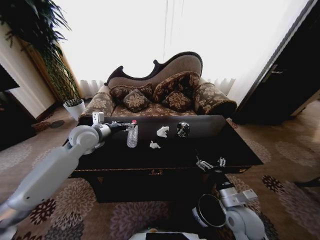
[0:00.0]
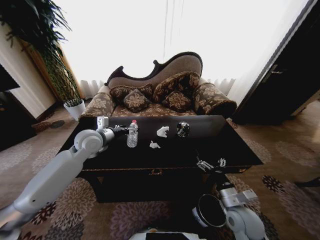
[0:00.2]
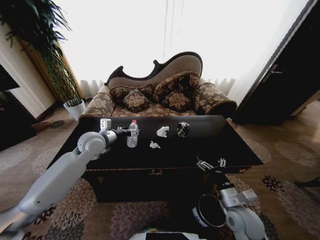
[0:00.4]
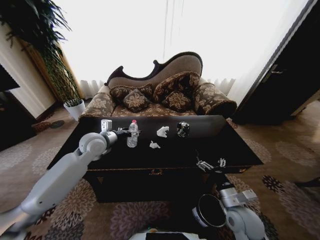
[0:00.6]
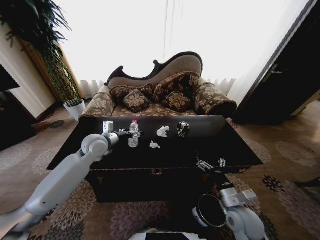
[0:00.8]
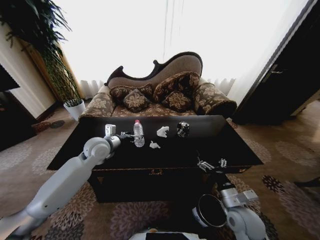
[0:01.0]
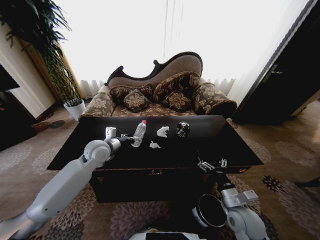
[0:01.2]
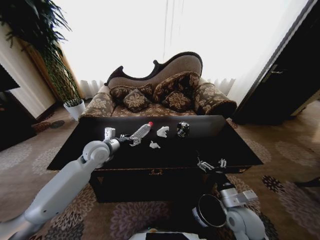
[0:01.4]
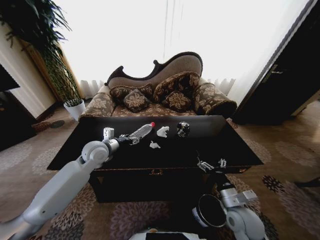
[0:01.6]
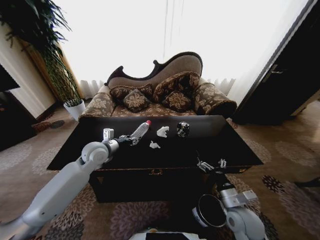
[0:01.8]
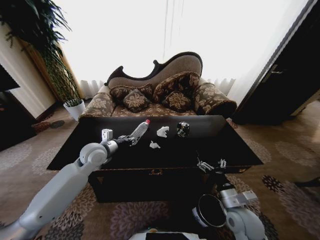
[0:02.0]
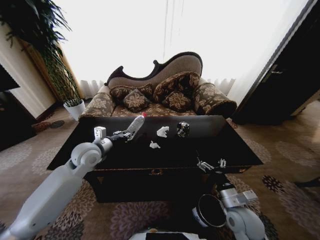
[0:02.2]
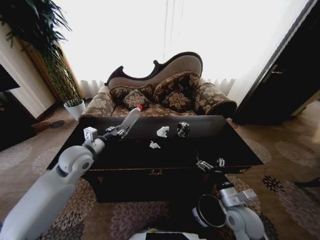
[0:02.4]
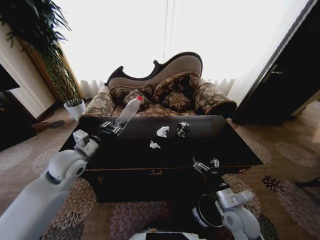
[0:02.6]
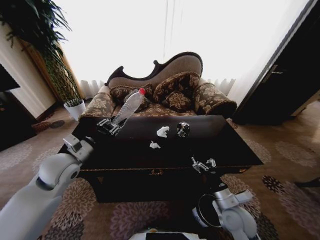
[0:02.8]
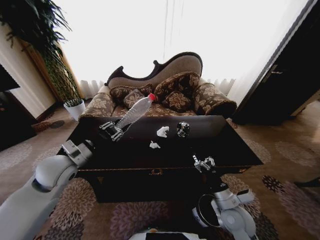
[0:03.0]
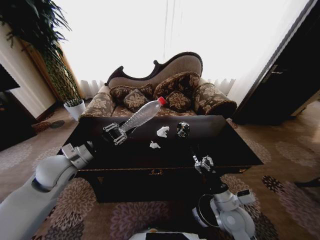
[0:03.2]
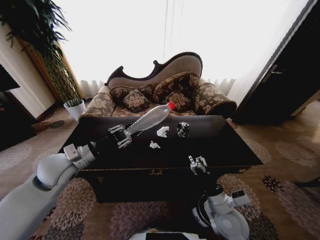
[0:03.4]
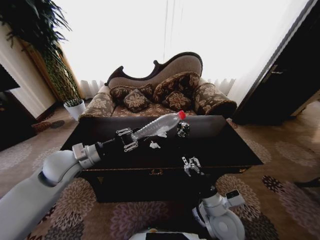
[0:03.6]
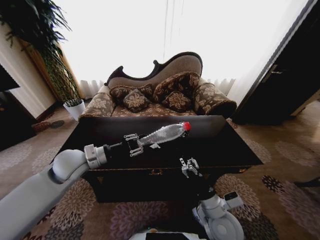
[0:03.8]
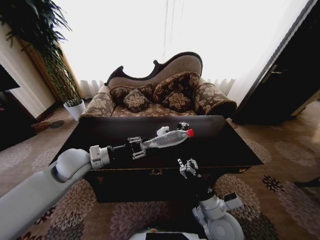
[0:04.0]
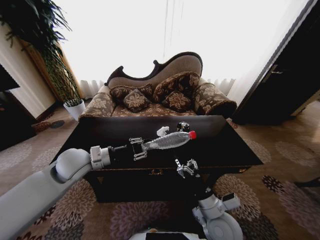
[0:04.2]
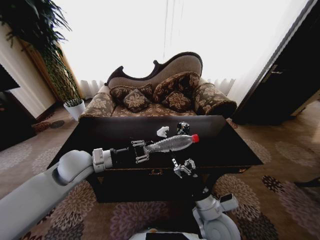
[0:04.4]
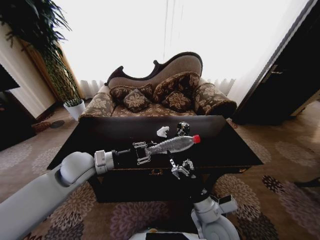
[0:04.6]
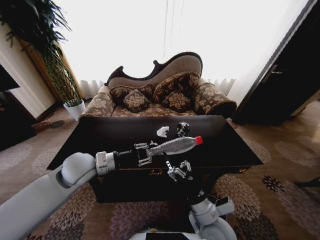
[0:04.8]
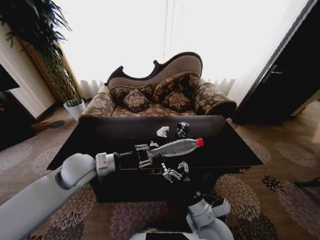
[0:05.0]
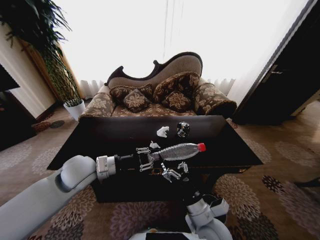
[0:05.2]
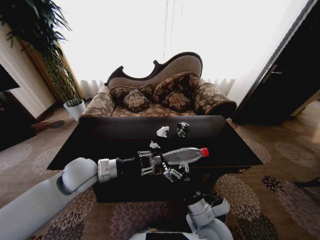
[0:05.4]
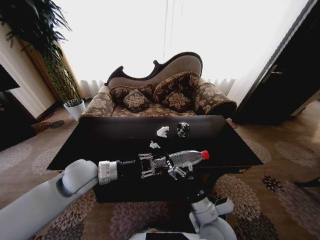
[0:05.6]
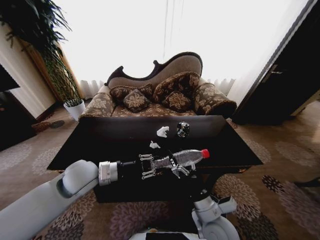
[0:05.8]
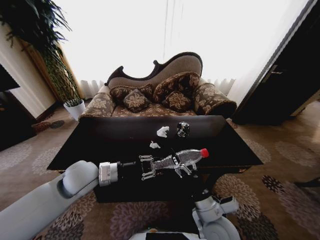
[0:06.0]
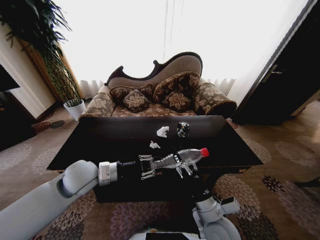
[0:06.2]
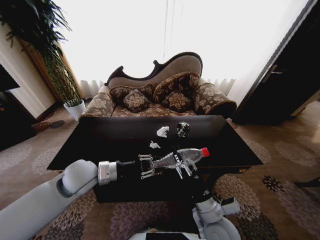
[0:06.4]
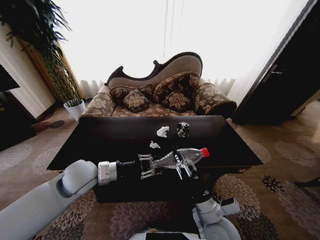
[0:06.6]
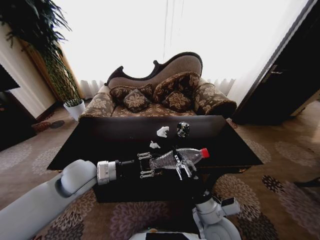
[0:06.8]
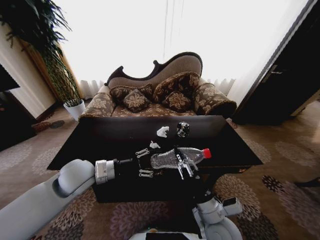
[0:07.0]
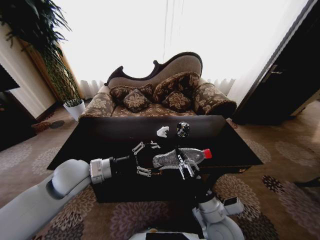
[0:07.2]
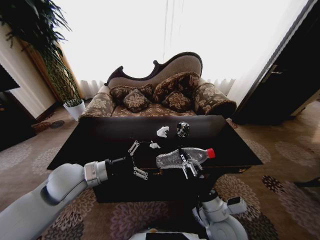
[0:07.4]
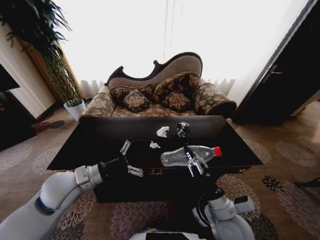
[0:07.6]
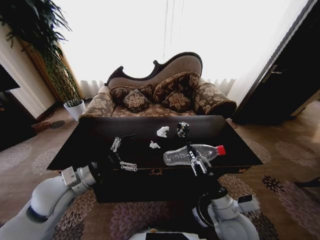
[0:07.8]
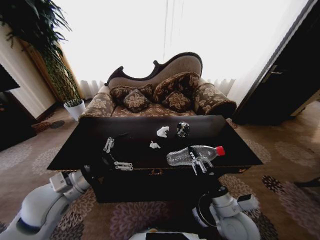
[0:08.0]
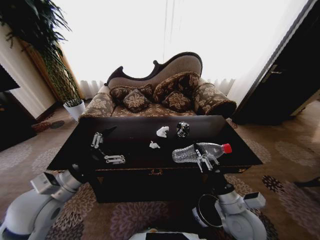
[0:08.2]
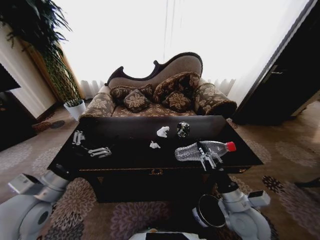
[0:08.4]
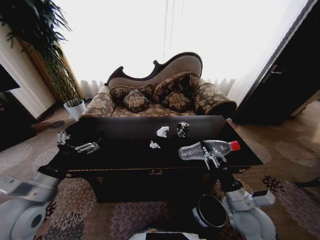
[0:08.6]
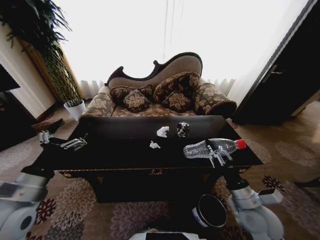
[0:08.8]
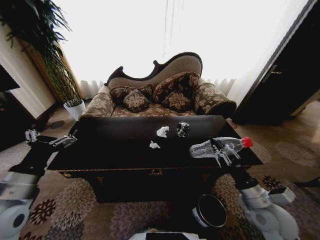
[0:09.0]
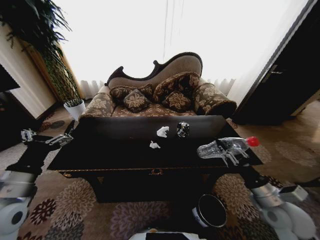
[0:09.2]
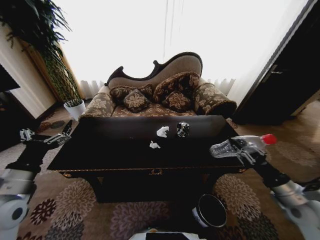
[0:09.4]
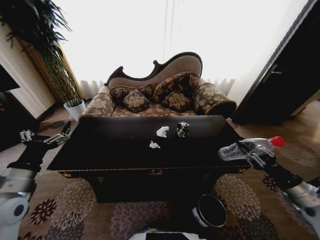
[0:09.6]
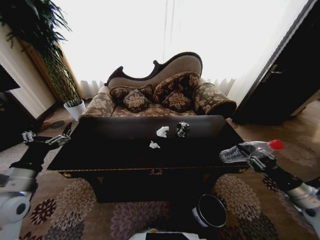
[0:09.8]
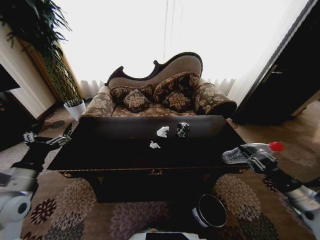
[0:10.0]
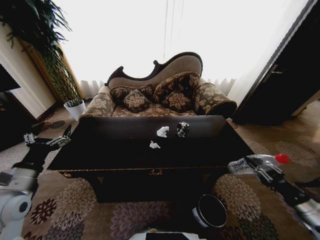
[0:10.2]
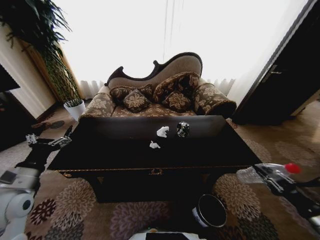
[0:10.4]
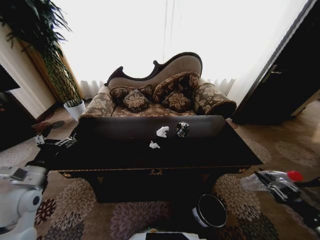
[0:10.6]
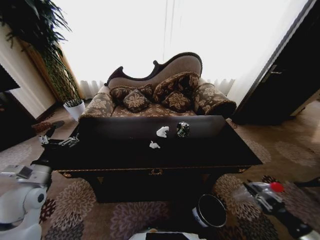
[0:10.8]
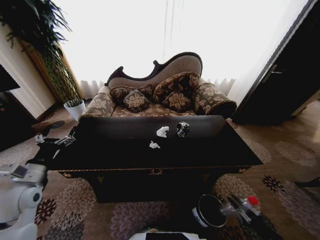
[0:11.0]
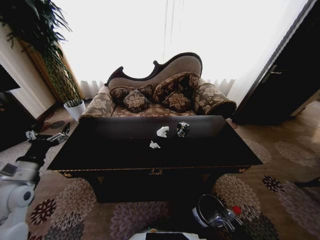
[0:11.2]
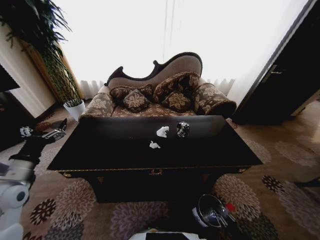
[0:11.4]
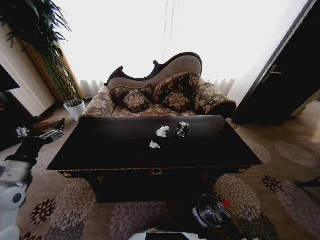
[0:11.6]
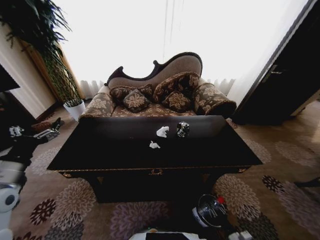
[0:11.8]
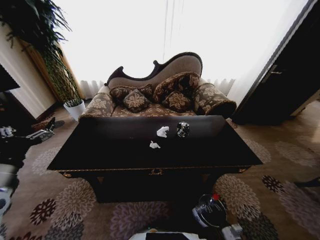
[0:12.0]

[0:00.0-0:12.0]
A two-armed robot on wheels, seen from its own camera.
Task of the whole recording: Move to the front of the table and place the trash on the table into the trash bin.
0:00.0 to 0:01.6: The left gripper moves downward, some 5 cm.
0:01.6 to 0:03.0: The left gripper goes some 10 cm backward and to the left, and closes its fingers.
0:03.0 to 0:04.4: The left gripper moves to the right, roughly 5 cm, while the right gripper moves to the left, roughly 10 cm.
0:04.4 to 0:06.0: The grippers make only small movements.
0:06.0 to 0:07.6: The left gripper ends up roughly 5 cm from where it was, and opens. Meanwhile the right gripper closes.
0:07.6 to 0:09.0: The left gripper moves to the left and backward, about 10 cm. Meanwhile the right gripper moves to the right, approximately 10 cm.
0:09.0 to 0:10.4: The right gripper goes some 20 cm to the right. The left gripper moves approximately 5 cm.
0:10.4 to 0:12.0: The right gripper is displaced downward and to the left by some 35 cm.

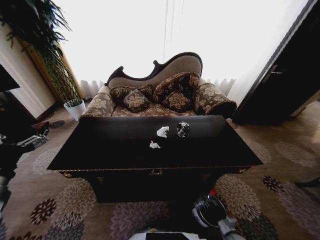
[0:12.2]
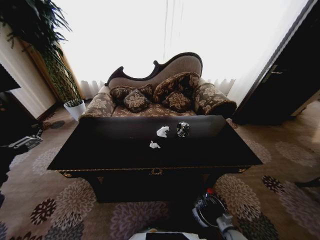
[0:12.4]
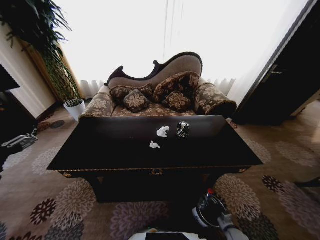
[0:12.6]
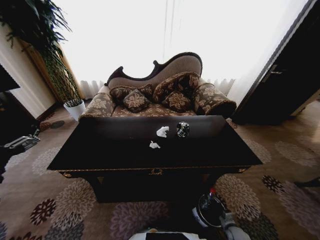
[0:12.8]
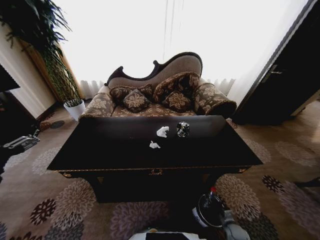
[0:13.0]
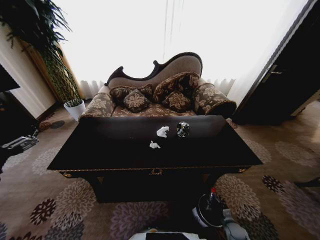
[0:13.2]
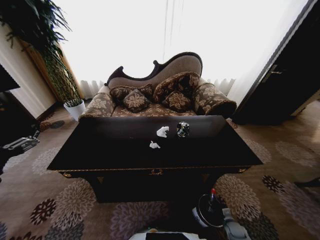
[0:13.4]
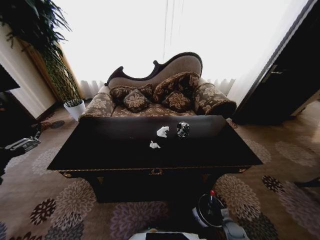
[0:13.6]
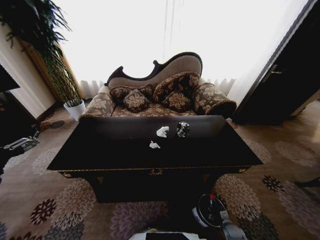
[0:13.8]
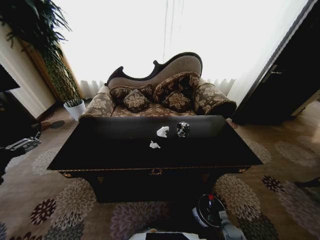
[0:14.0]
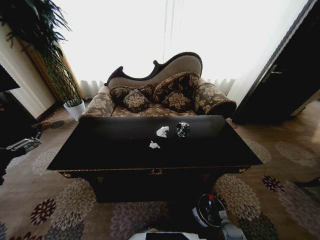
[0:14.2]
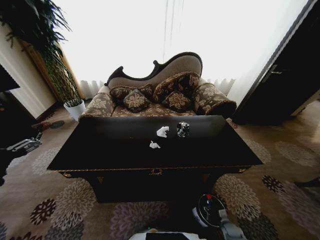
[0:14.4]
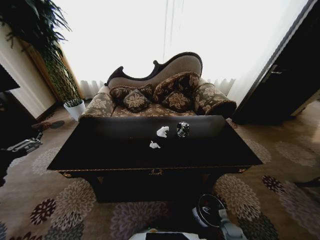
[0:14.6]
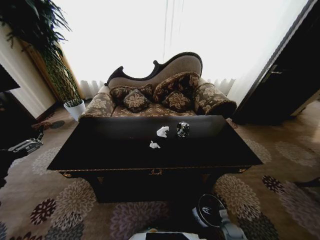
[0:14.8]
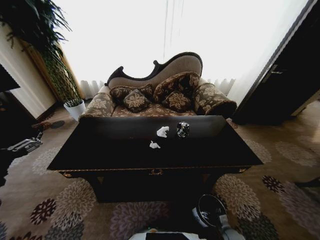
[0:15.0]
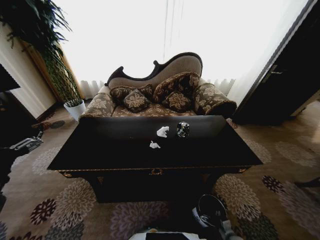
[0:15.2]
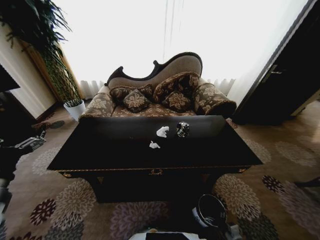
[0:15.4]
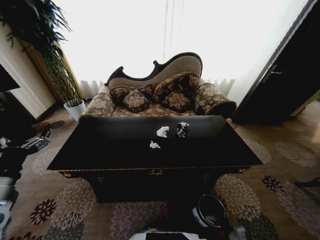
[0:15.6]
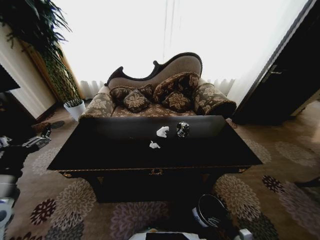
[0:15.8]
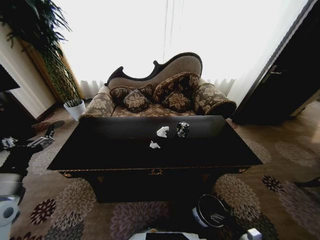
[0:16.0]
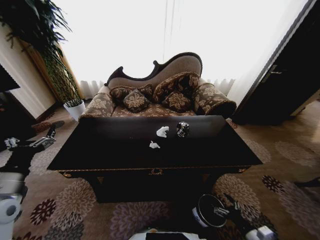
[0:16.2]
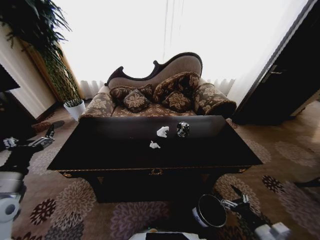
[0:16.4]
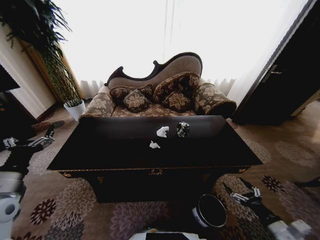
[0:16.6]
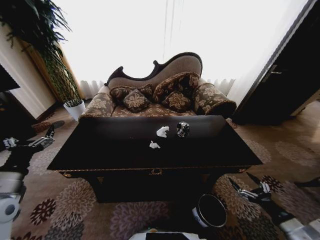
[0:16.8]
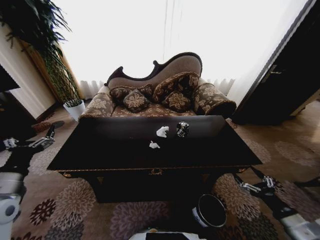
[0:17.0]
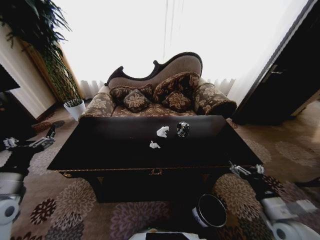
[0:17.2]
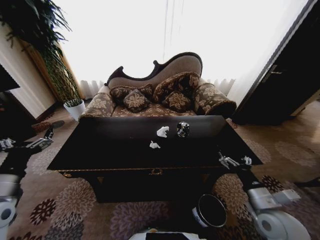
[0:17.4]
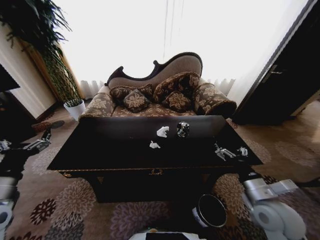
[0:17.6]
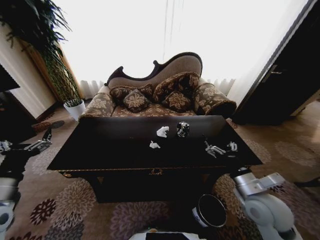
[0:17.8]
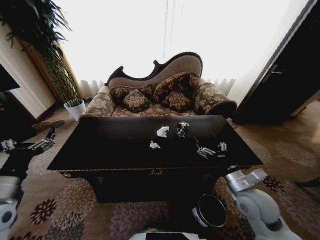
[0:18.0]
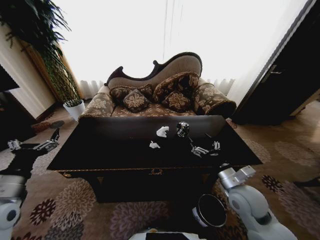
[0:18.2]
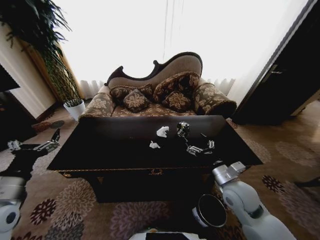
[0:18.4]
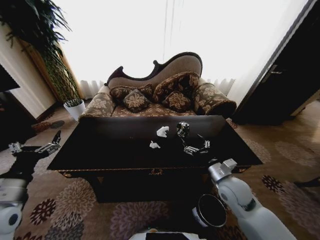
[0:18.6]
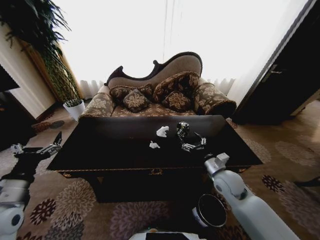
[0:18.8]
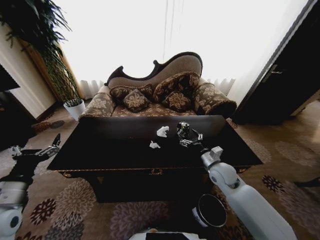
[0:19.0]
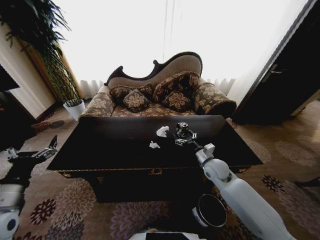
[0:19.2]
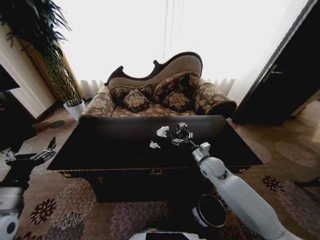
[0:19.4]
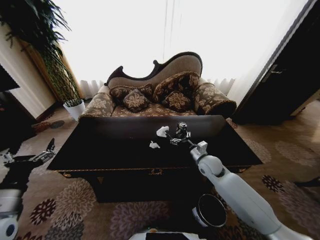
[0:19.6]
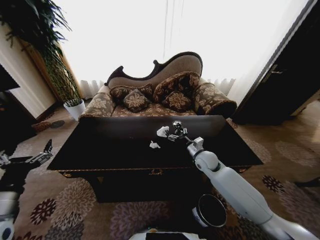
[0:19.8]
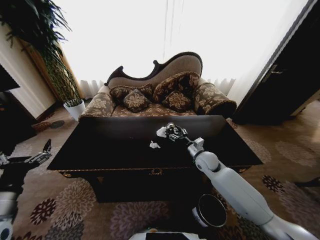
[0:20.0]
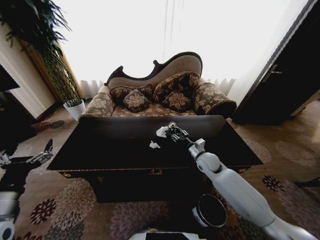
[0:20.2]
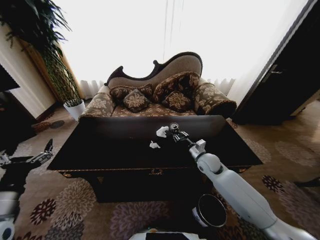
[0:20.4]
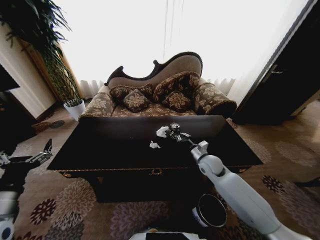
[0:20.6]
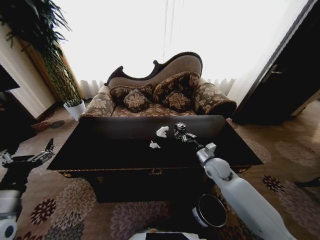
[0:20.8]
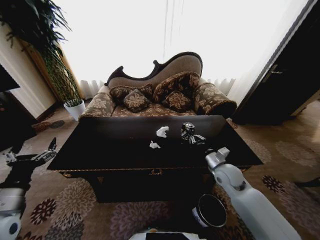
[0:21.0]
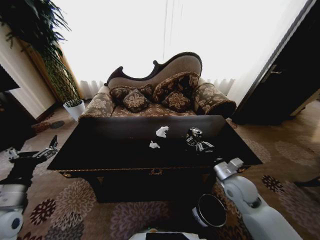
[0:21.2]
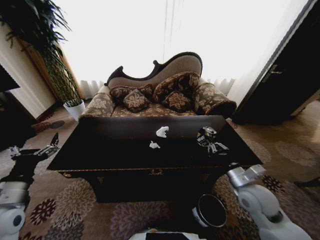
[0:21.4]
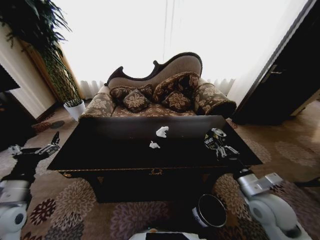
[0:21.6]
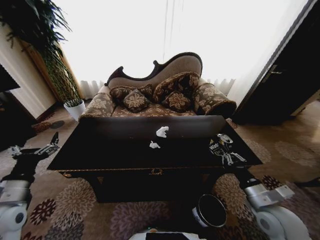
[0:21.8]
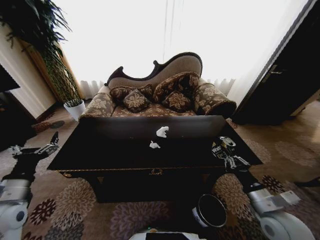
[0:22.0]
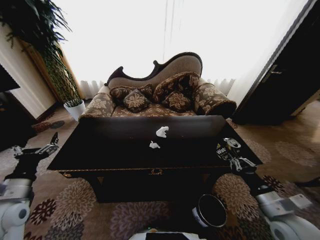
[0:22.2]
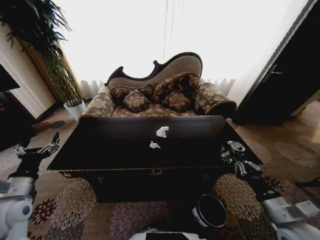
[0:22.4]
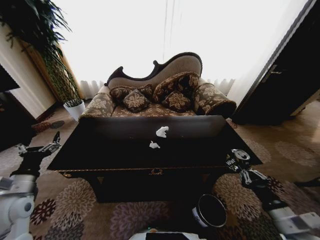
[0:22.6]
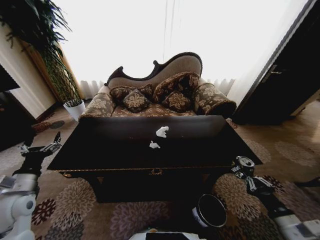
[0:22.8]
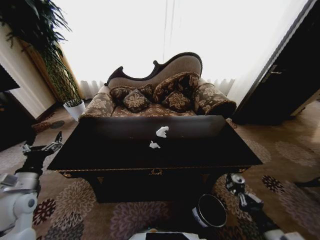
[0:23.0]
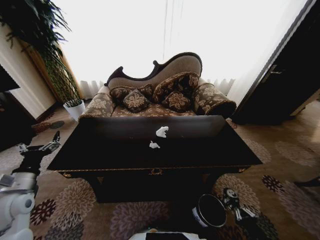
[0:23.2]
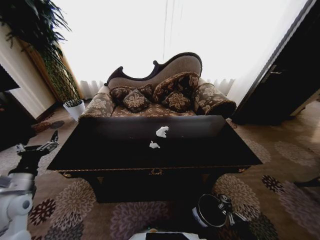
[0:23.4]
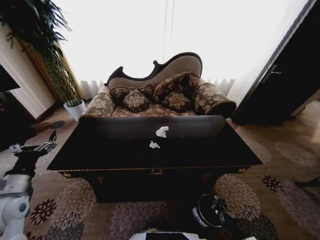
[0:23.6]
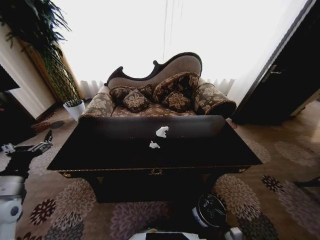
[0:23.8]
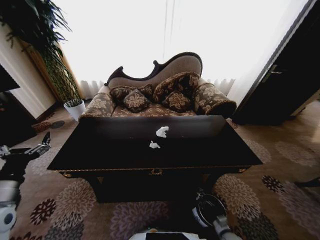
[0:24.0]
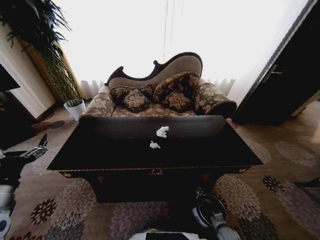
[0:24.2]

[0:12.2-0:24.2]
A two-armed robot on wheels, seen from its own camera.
Task of the whole recording: Move to the front of the table and place the trash on the table into the trash bin.
0:13.8 to 0:15.2: The right gripper shifts by roughly 5 cm, and opens.
0:15.2 to 0:16.6: The left gripper shifts by some 5 cm; the right gripper is displaced upward by about 30 cm.
0:16.6 to 0:18.2: The right gripper travels to the left, forward and upward by roughly 25 cm.
0:18.2 to 0:19.8: The right gripper heads forward, covering roughly 20 cm.
0:19.8 to 0:21.2: The right gripper moves backward and to the right, some 15 cm, and closes up.
0:21.2 to 0:22.6: The left gripper changes place by some 5 cm. Meanwhile the right gripper goes roughly 20 cm backward and to the right.
0:22.6 to 0:24.2: The right gripper heads downward, covering some 35 cm, while the left gripper shifts by about 5 cm.
